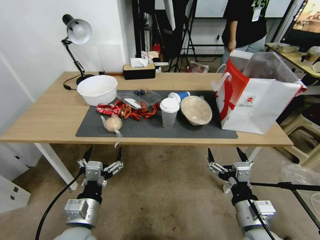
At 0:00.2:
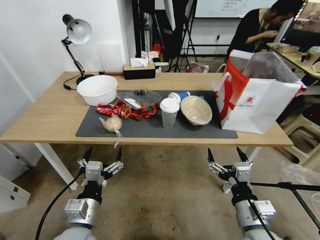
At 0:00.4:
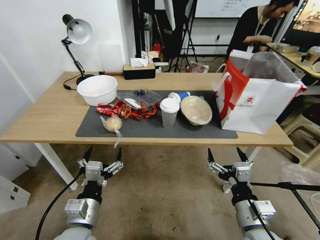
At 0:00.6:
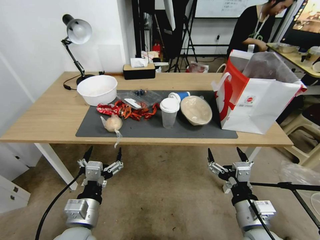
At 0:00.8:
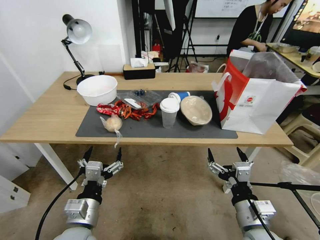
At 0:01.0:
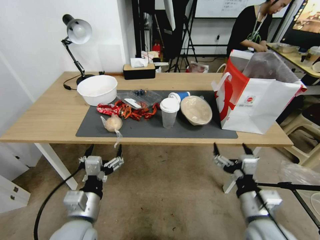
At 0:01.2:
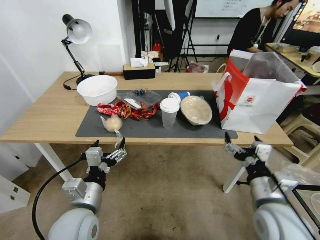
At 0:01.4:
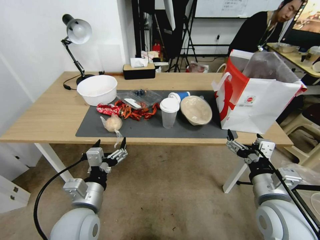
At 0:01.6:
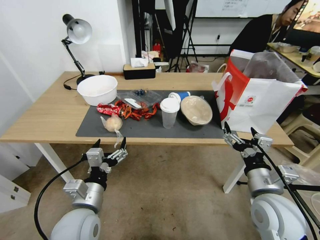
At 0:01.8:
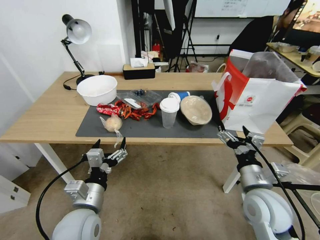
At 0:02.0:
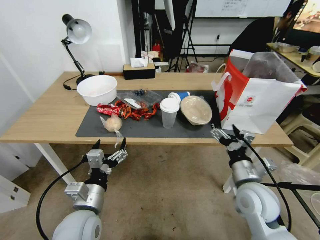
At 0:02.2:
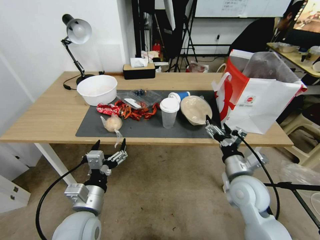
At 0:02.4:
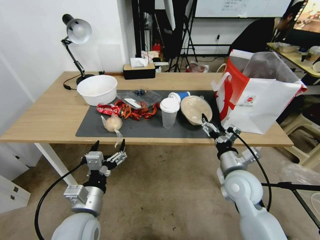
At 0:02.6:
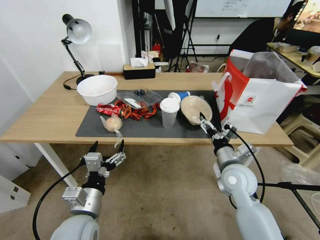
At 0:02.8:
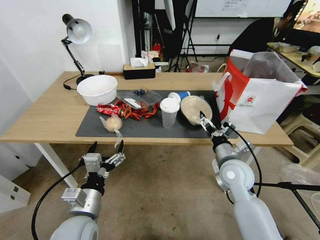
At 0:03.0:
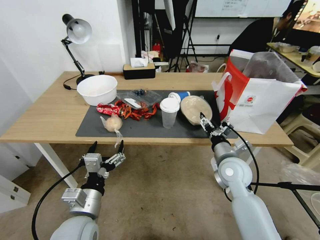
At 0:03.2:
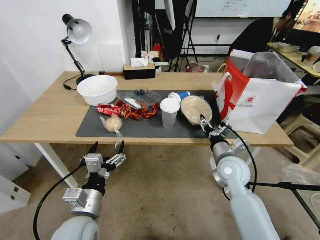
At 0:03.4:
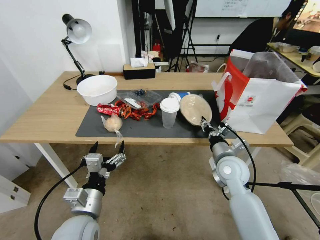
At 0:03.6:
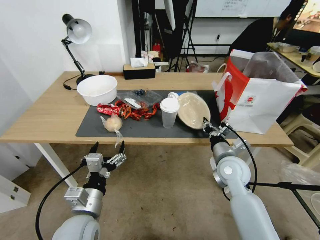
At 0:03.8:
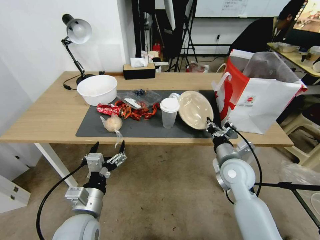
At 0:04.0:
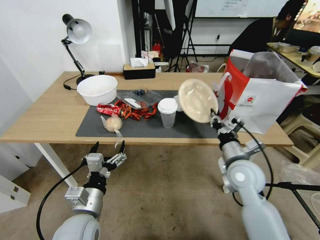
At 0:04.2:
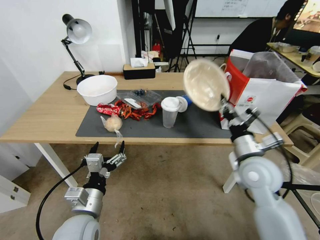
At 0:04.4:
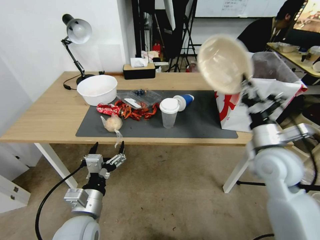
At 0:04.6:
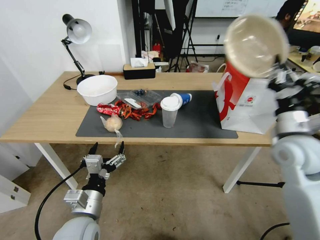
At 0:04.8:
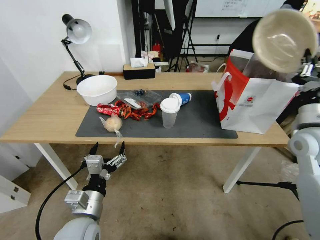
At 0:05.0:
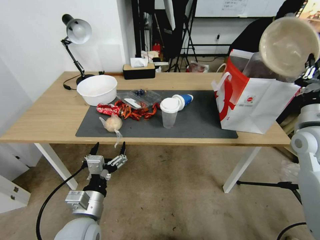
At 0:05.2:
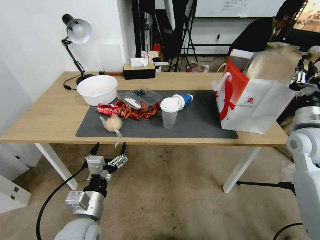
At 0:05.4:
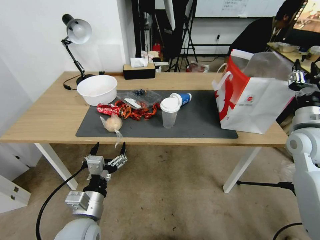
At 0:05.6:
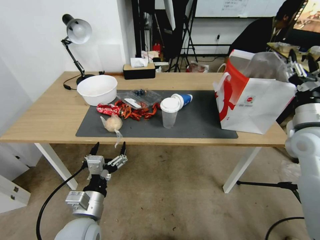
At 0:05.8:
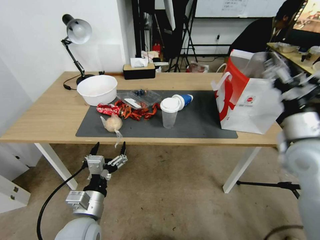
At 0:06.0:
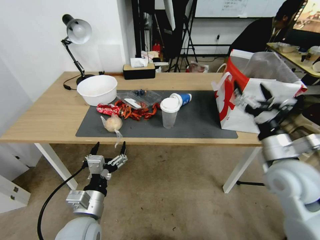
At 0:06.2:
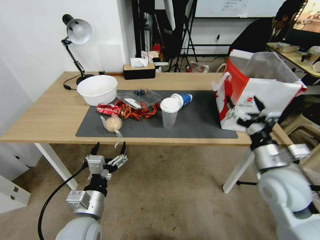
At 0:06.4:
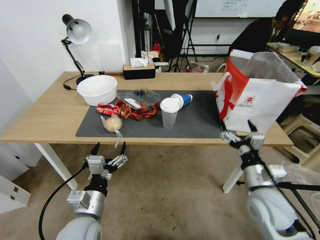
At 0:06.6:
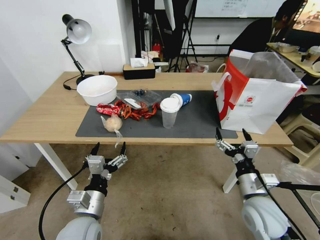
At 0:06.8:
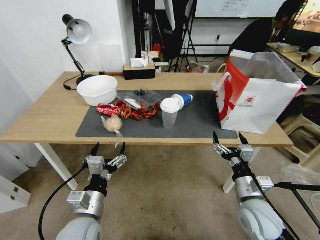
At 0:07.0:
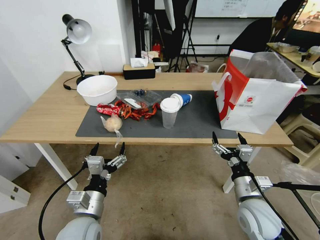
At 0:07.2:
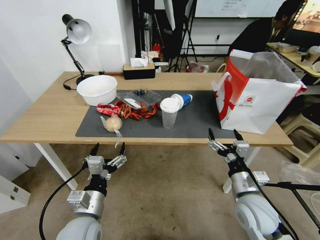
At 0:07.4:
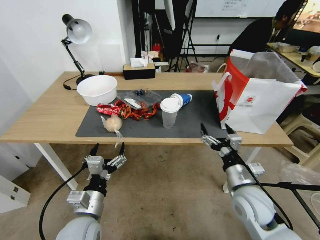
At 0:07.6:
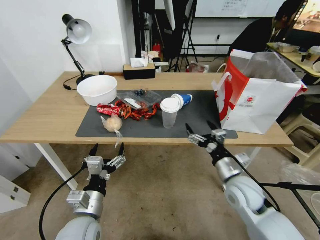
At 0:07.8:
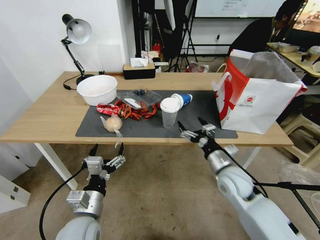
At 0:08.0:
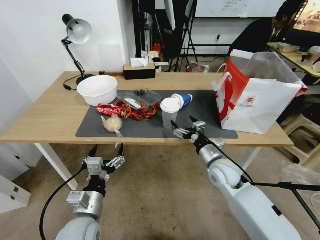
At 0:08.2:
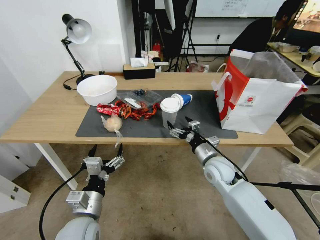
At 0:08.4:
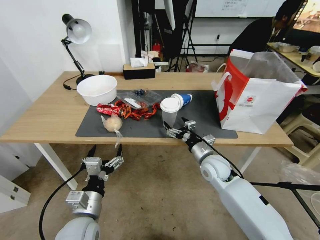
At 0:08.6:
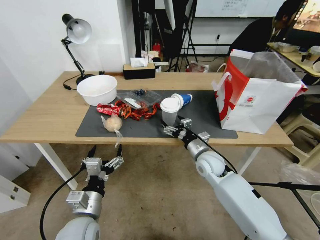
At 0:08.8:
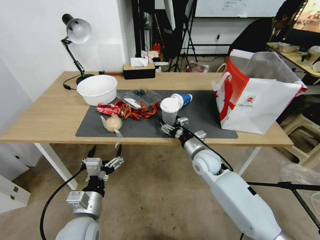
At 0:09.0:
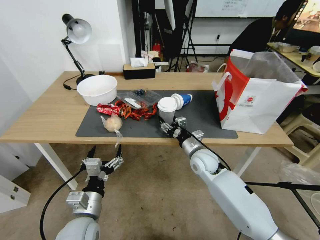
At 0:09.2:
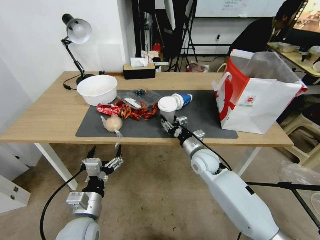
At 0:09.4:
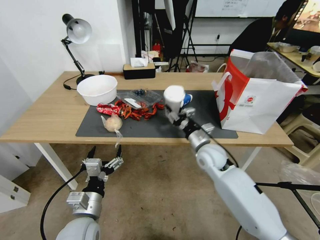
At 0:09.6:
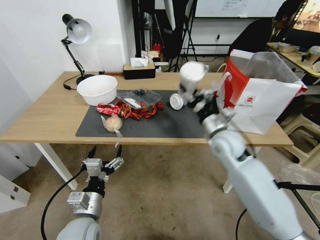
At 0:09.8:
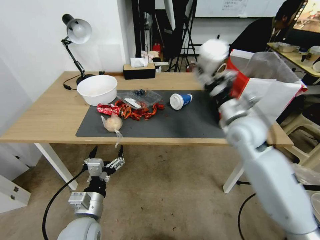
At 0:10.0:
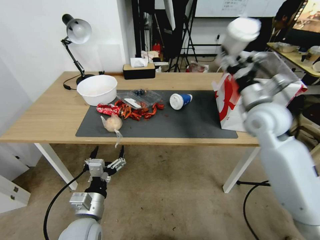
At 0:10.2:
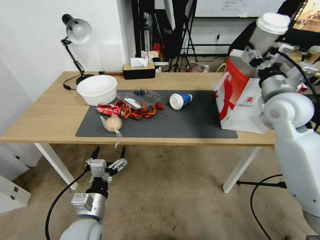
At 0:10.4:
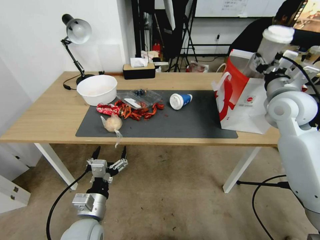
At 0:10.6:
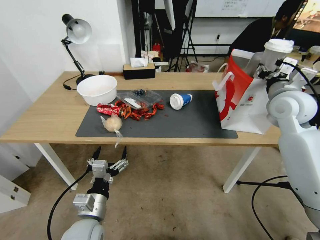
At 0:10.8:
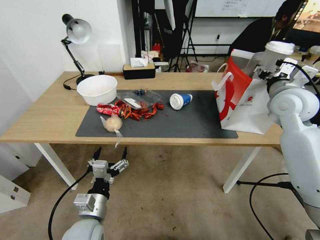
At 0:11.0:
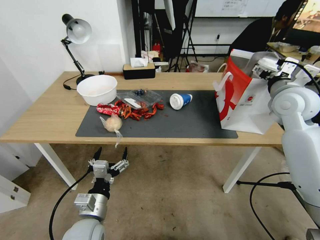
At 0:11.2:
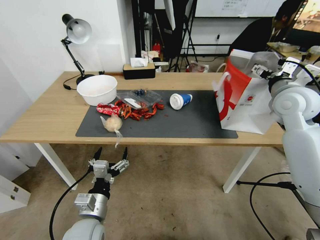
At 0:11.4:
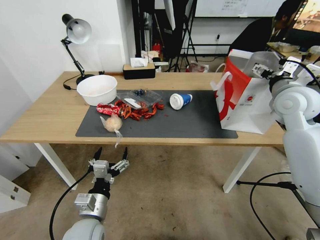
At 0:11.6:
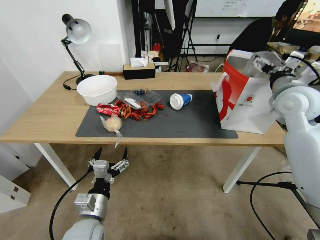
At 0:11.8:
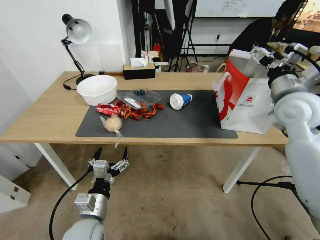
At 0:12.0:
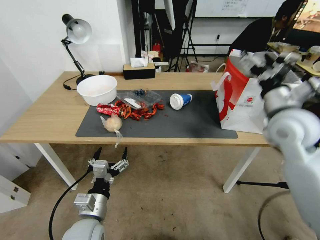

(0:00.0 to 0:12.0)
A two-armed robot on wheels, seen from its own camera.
0:01.6 - 0:03.0: The right gripper moves forward, about 15 cm.
0:03.0 - 0:04.4: The right gripper moves upward and to the right, roughly 10 cm, and closes up.
0:04.4 - 0:06.0: The right gripper reaches approximately 10 cm to the right, then returns, and opens up.
0:06.0 - 0:07.6: The right gripper travels downward and to the left by approximately 15 cm.
0:07.6 - 0:09.0: The right gripper moves forward and to the left, approximately 15 cm, and closes up.
0:09.0 - 0:10.4: The right gripper heads upward and to the right, covering about 30 cm.
0:10.4 - 0:12.0: The right gripper goes about 5 cm backward, and opens its fingers.

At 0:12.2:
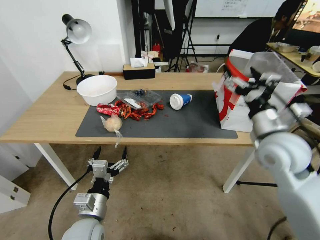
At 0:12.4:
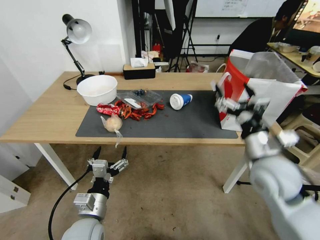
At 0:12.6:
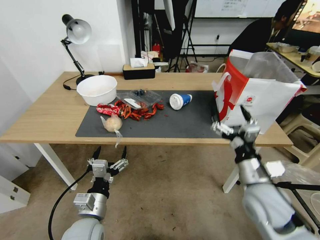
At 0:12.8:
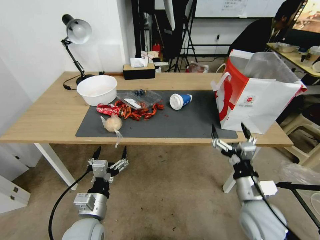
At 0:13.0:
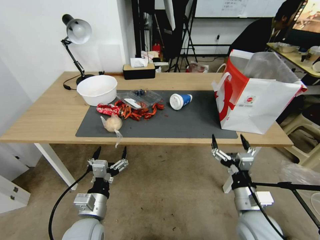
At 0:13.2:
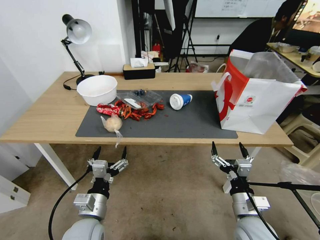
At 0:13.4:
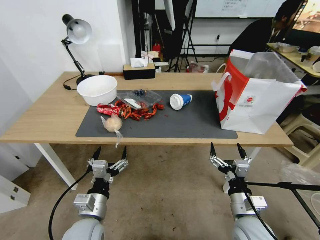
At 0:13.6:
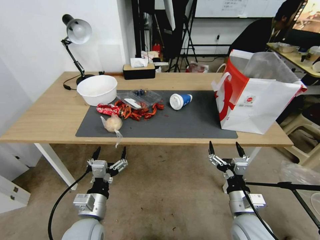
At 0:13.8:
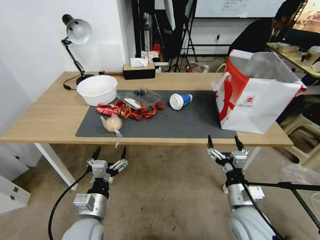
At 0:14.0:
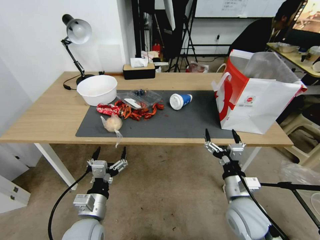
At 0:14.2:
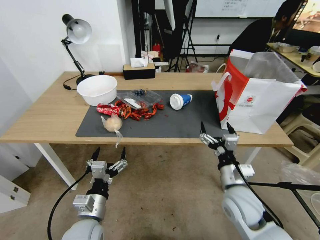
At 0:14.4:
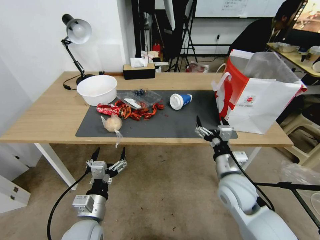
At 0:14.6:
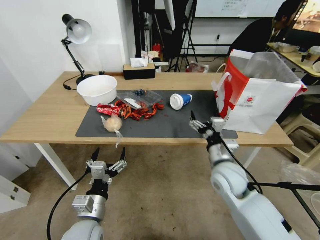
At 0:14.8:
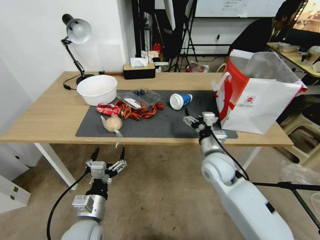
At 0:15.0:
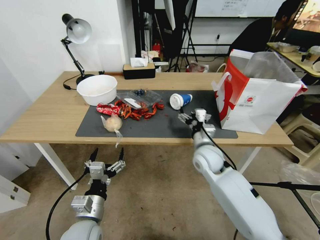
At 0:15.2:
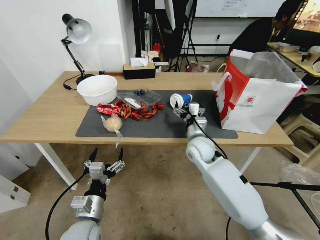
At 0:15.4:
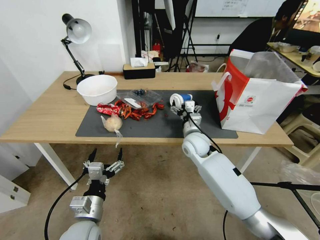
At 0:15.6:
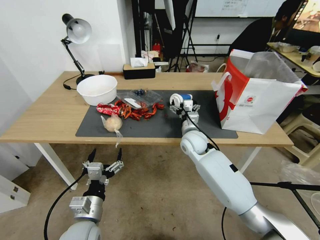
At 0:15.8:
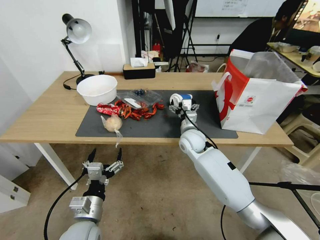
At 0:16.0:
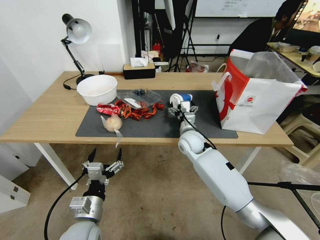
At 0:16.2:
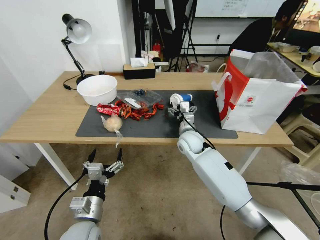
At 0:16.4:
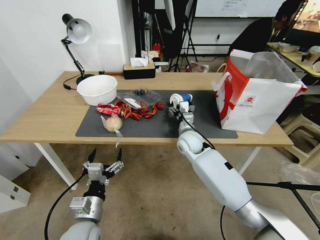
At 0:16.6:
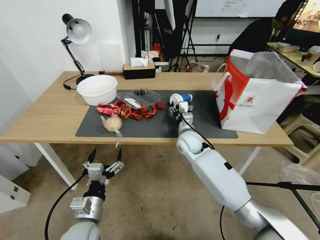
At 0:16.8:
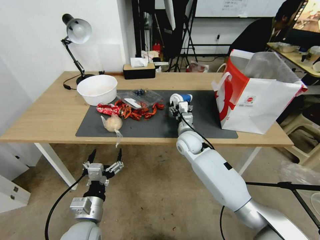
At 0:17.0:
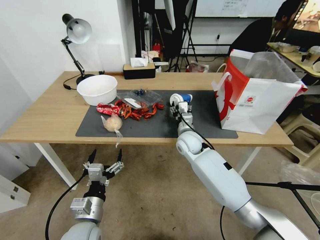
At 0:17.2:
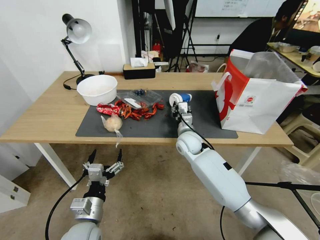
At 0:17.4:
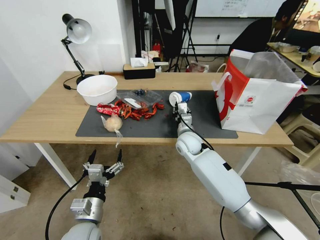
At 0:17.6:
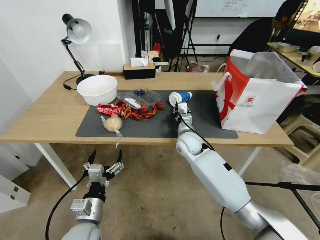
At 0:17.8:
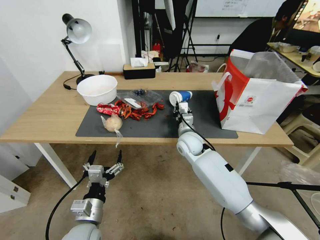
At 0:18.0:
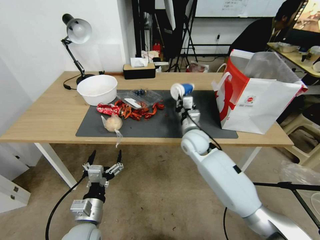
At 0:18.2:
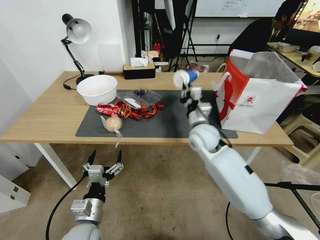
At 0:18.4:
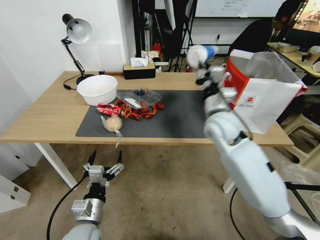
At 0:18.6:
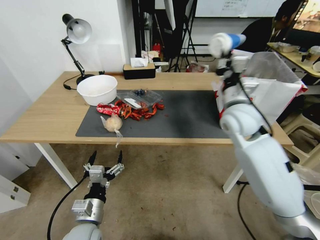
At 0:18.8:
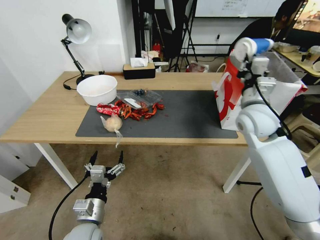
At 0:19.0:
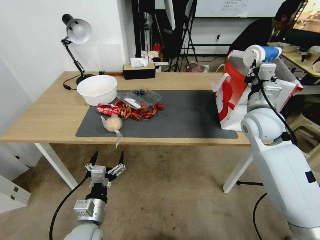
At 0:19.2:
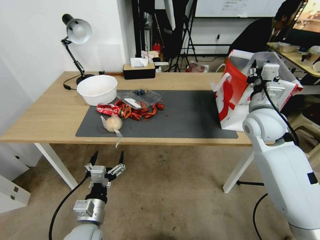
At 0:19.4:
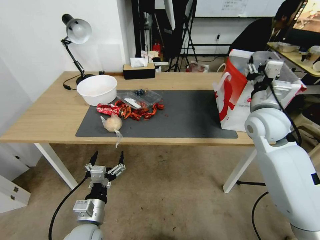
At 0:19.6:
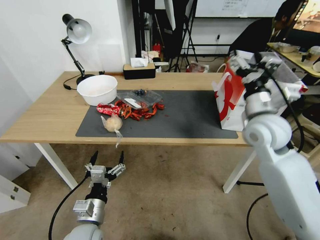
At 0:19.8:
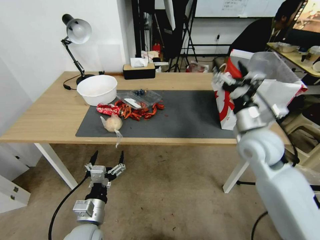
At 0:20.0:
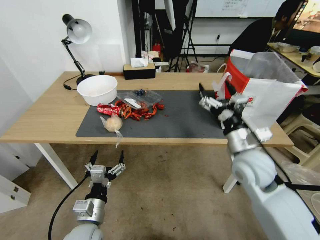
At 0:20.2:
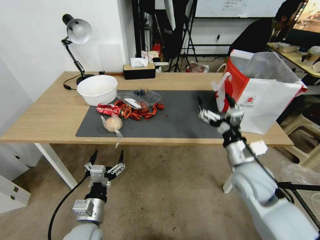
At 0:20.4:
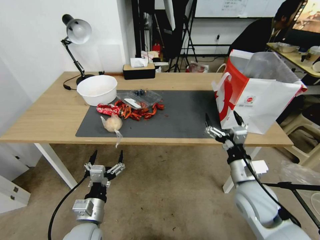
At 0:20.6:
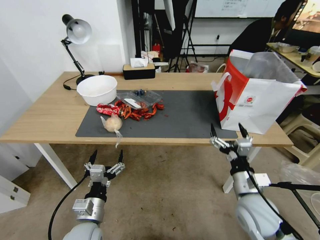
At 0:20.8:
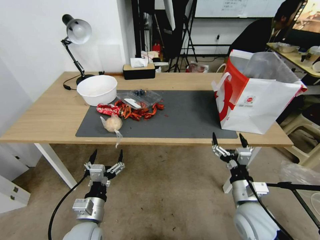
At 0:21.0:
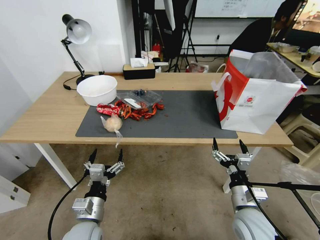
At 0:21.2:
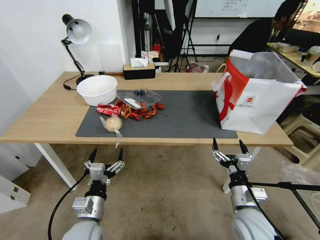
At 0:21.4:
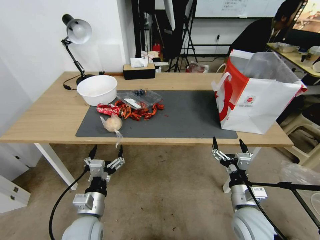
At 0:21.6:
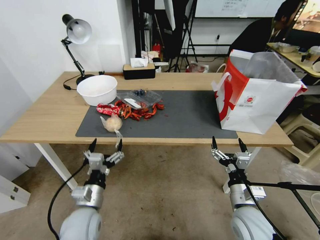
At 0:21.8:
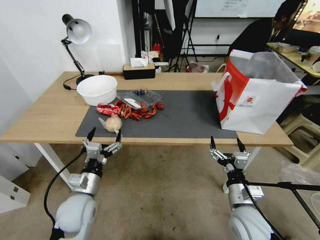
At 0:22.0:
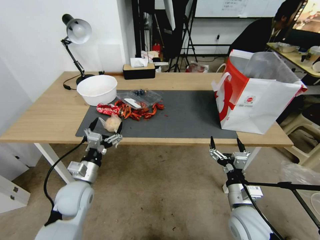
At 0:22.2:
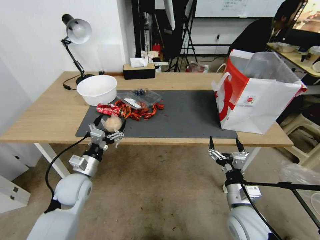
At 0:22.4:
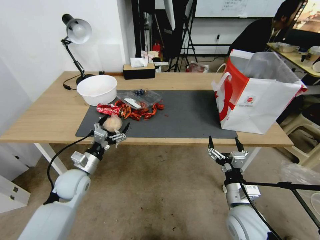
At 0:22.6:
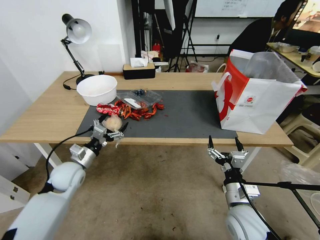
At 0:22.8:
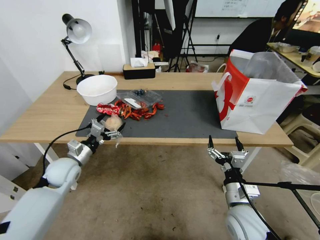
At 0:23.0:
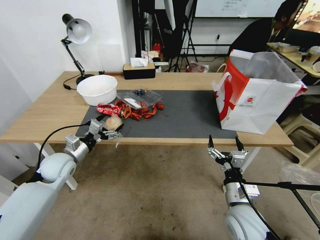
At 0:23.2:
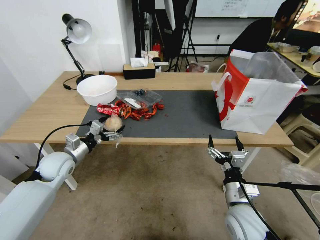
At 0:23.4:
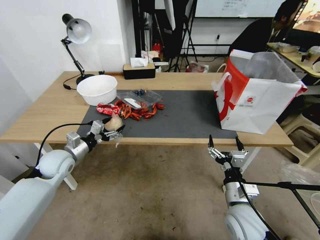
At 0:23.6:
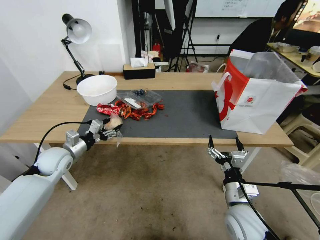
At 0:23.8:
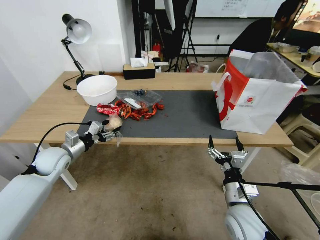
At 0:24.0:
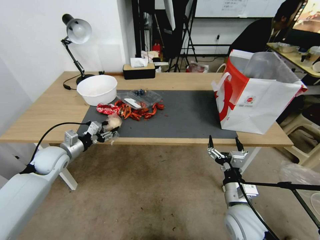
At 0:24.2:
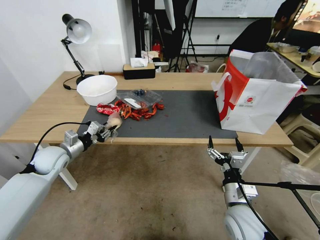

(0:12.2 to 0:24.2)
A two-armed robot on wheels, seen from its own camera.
0:12.2 - 0:13.8: The right gripper is displaced downward and backward by approximately 25 cm.
0:13.8 - 0:15.2: The right gripper goes approximately 25 cm forward and to the left.
0:15.2 - 0:16.6: The right gripper moves some 5 cm.
0:16.6 - 0:18.2: The right gripper heads upward, covering about 5 cm, and closes up.
0:18.2 - 0:19.8: The right gripper shifts some 15 cm to the right, upward and backward, and opens.
0:19.8 - 0:21.2: The right gripper shifts approximately 25 cm downward and backward.
0:21.2 - 0:22.6: The left gripper moves forward and to the left, about 20 cm.
0:22.6 - 0:24.2: The left gripper travels to the left by approximately 5 cm, and closes.
